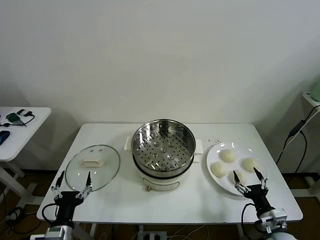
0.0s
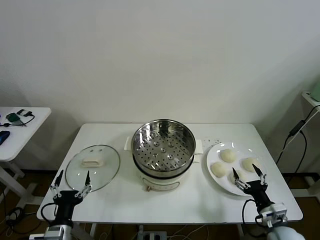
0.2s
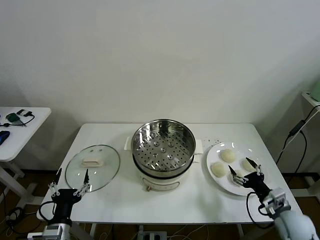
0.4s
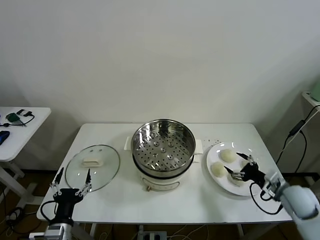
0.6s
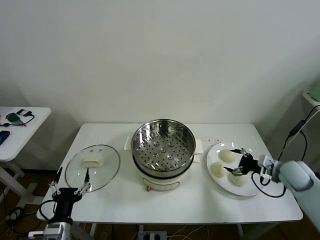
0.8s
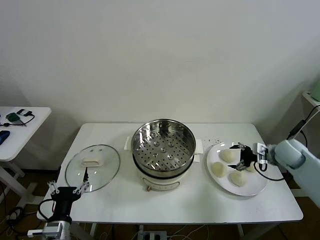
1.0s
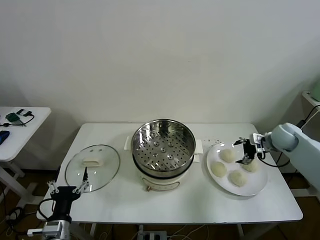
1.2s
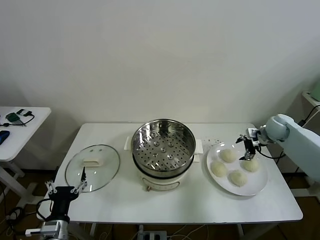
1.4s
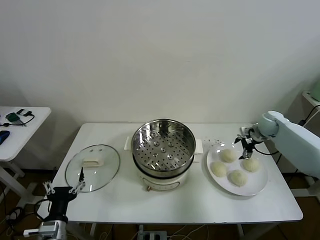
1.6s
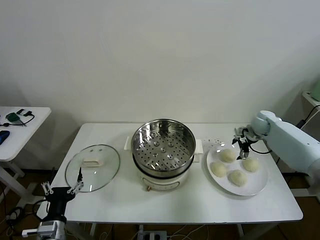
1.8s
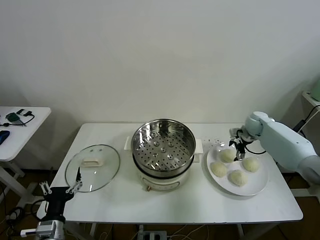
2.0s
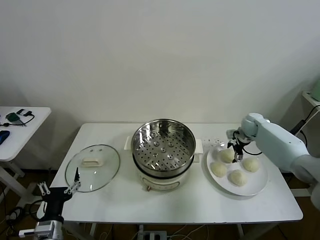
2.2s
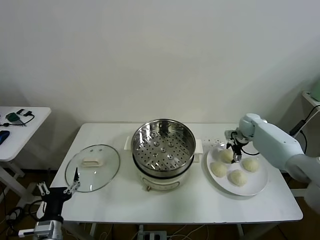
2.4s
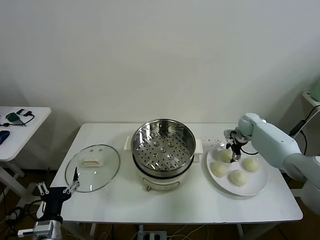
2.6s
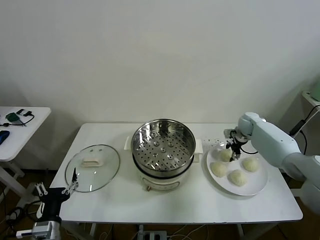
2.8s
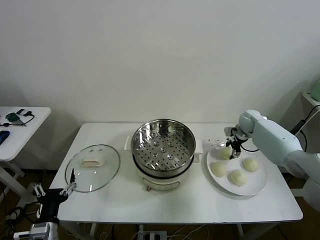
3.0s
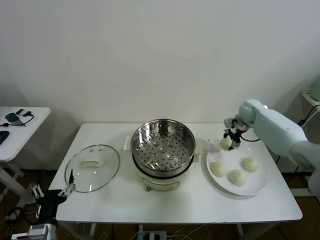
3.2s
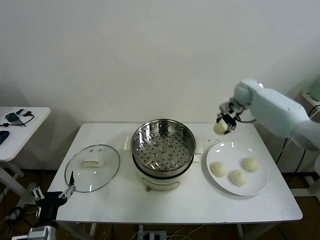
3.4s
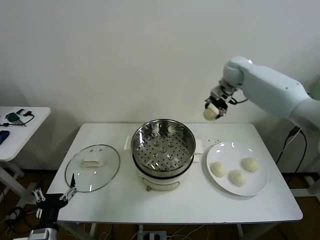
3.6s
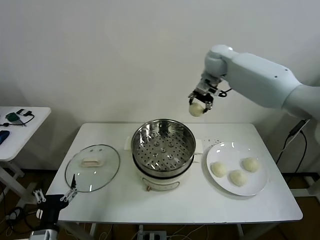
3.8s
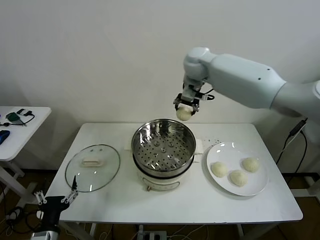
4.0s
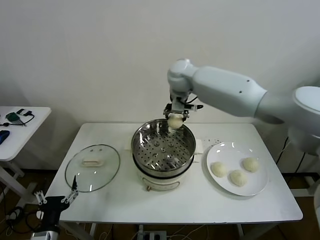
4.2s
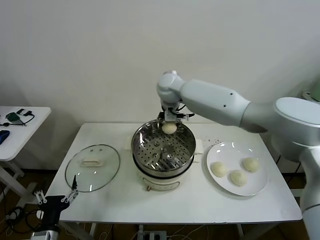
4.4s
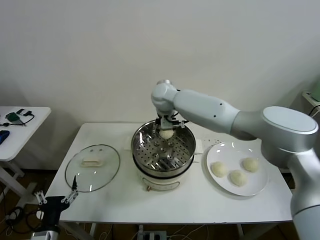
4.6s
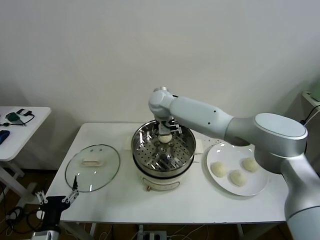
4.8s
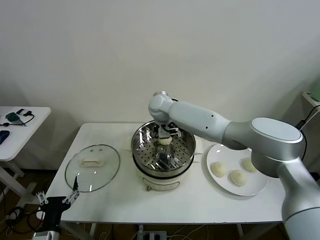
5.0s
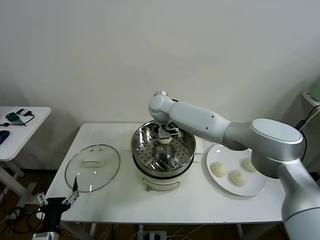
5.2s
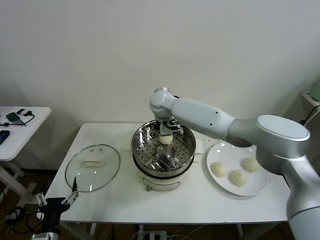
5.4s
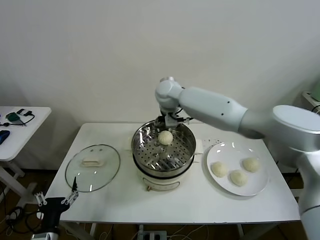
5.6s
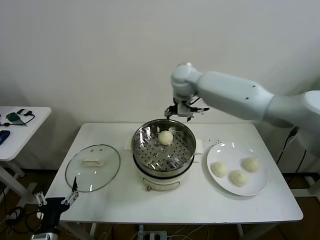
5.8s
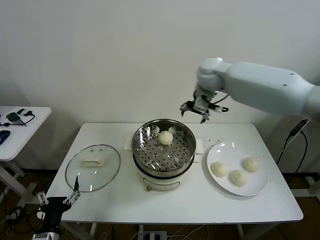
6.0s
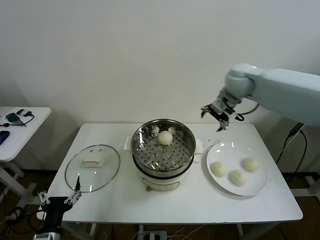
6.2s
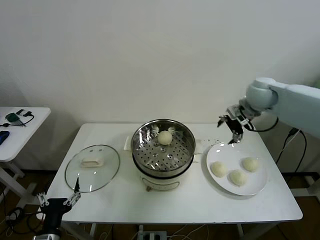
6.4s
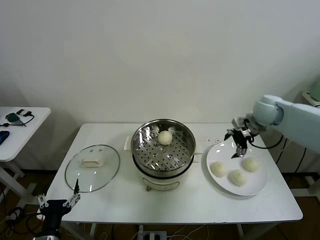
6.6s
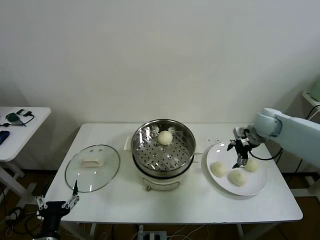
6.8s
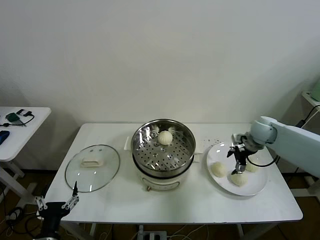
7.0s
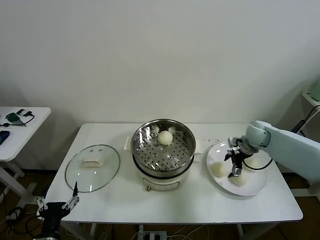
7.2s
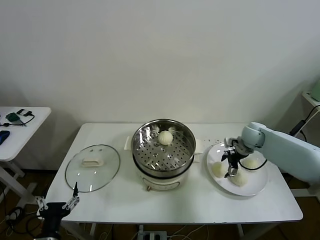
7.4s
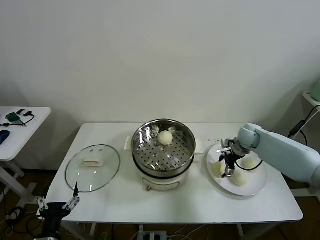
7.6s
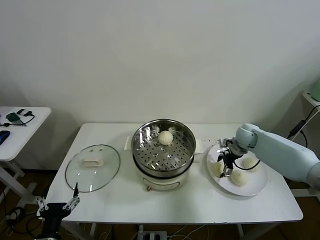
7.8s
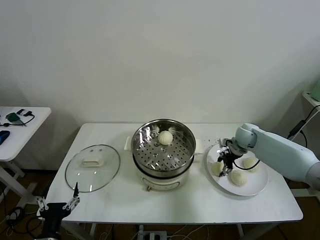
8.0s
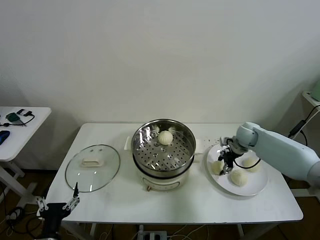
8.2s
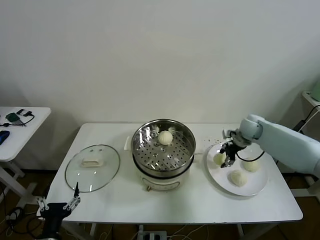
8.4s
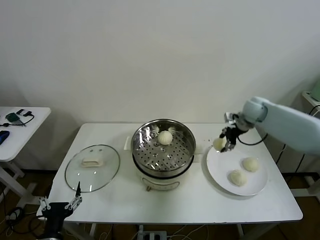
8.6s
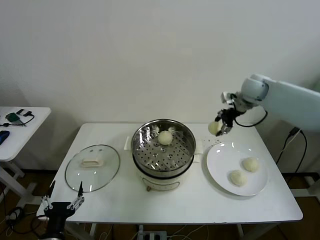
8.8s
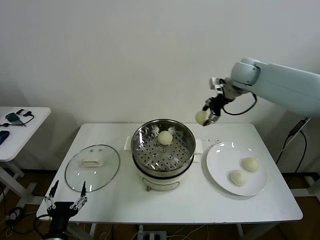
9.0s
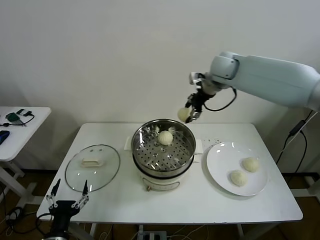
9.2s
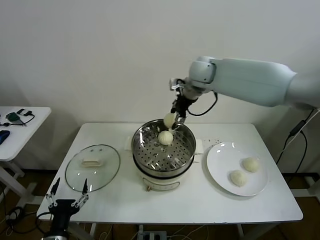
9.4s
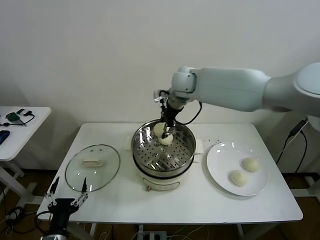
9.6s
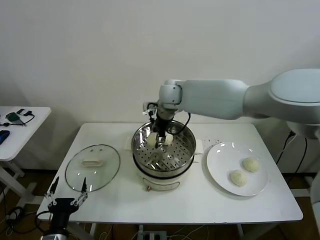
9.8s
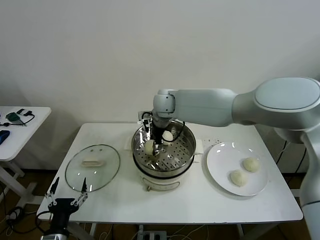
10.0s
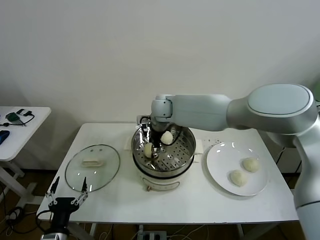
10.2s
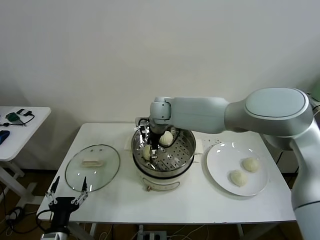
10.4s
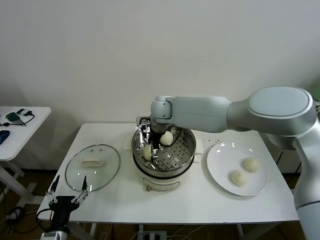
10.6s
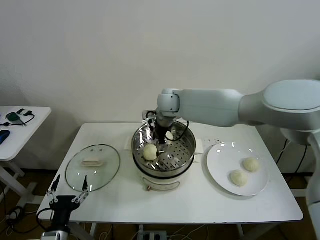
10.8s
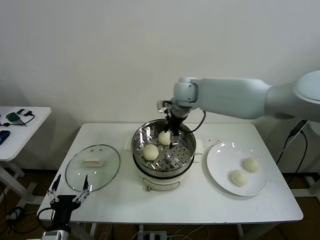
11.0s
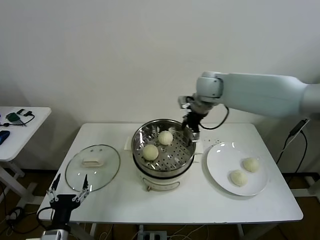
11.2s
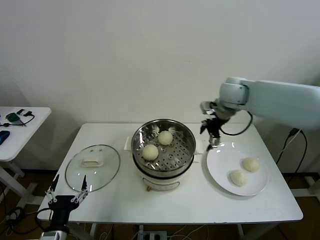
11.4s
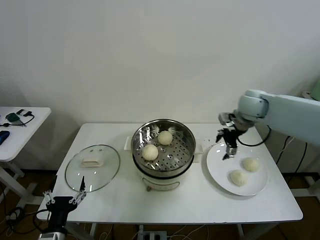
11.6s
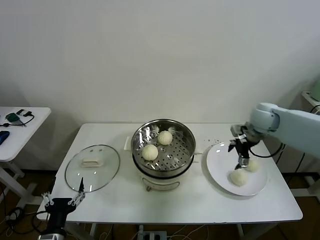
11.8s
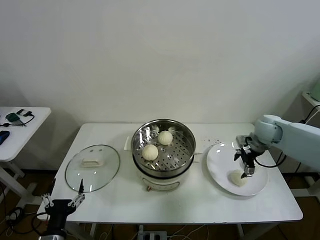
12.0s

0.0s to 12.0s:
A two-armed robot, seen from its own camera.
Task of the whole recording: take steamed baozi put them in steamer then cover it.
Step, 0.0s to 2.6s: Grasp the baozi in the plate with right gripper.
Step, 2.8s to 5.4s: Place the baozi on the steamer with right gripper.
Step, 5.6s to 8.0s: Grasp the baozi in the plate with right gripper.
Step, 8.2s to 10.6s: Place the baozi on the steamer with right gripper.
1.6s to 3.0s: The right gripper moves about 5 cm, and closes.
3.0s to 4.4s: The right gripper moves to the left, roughly 35 cm.
4.4s to 6.0s: The right gripper heads to the right, covering about 25 cm, and opens its fingers.
6.0s to 7.6s: The right gripper travels downward and to the right by approximately 25 cm.
7.6s to 9.0s: The right gripper travels upward and to the left by roughly 30 cm, and closes.
9.0s to 10.4s: The right gripper travels to the left and downward by roughly 25 cm, and opens up.
10.4s to 12.0s: The right gripper shifts roughly 40 cm to the right.

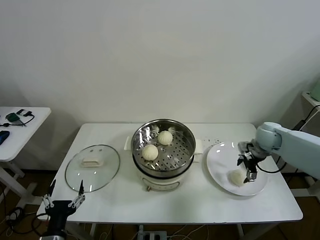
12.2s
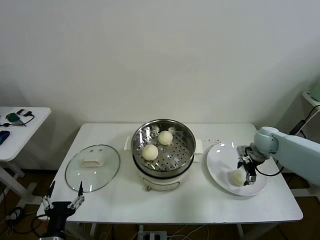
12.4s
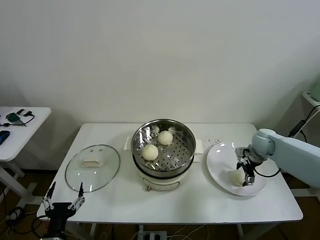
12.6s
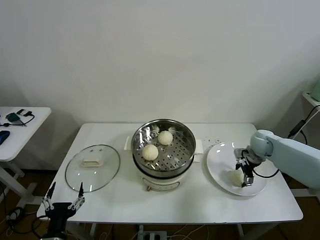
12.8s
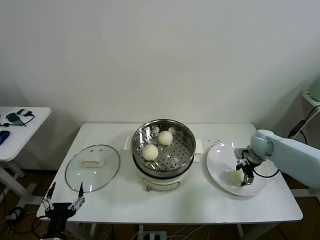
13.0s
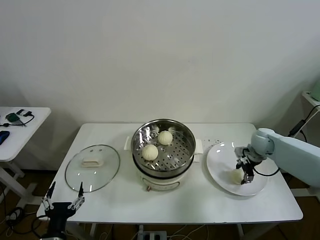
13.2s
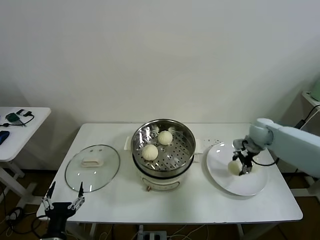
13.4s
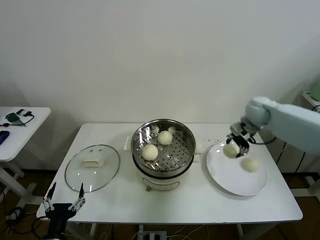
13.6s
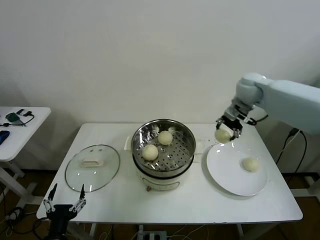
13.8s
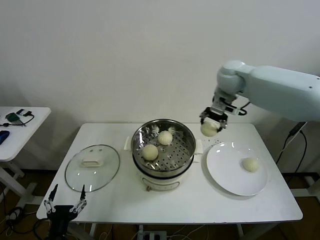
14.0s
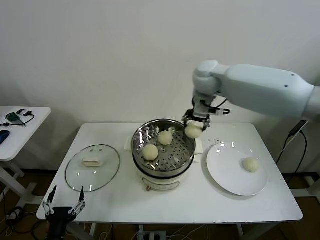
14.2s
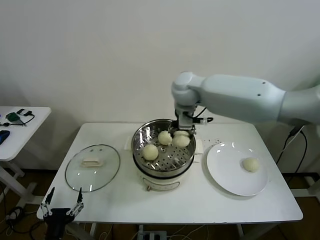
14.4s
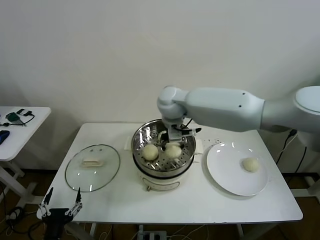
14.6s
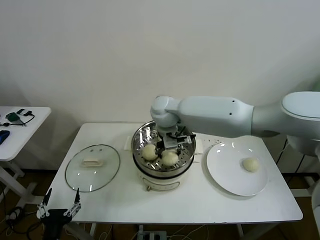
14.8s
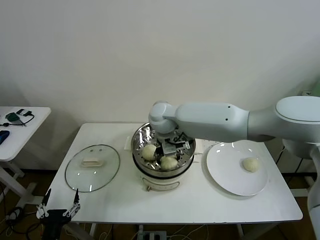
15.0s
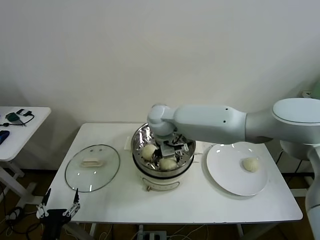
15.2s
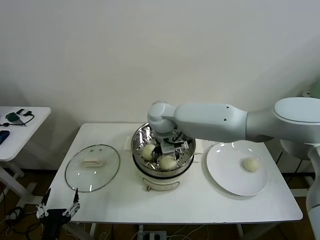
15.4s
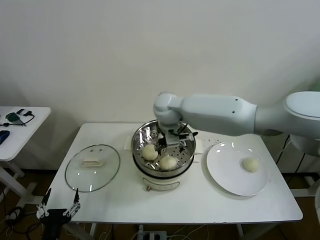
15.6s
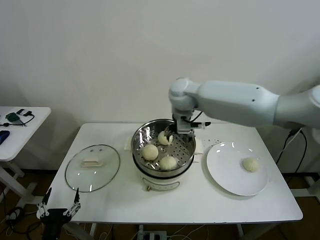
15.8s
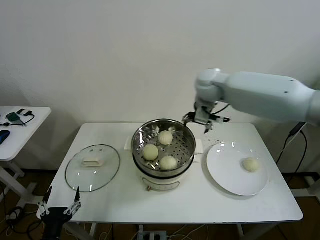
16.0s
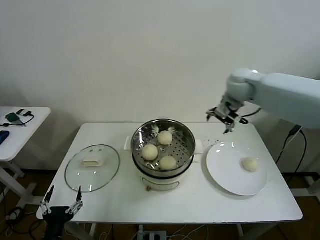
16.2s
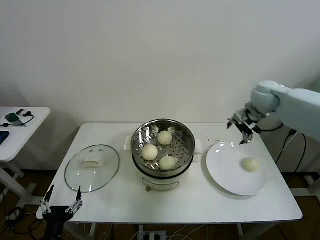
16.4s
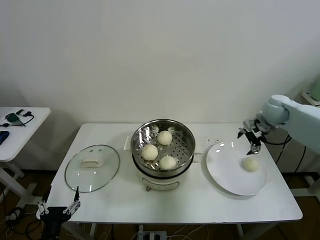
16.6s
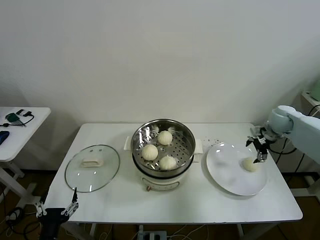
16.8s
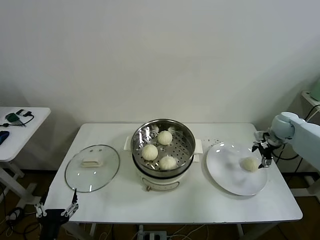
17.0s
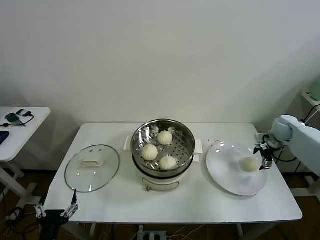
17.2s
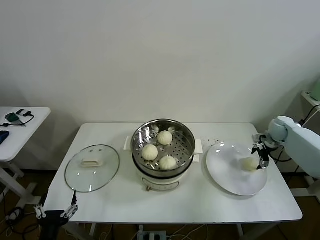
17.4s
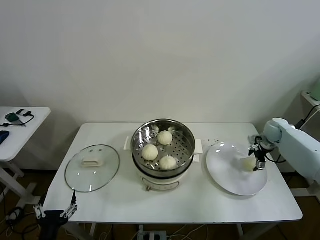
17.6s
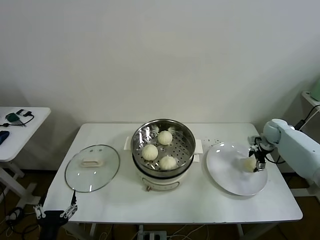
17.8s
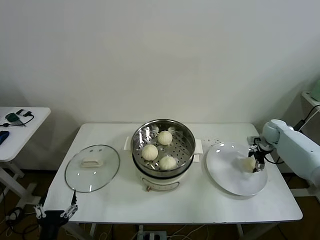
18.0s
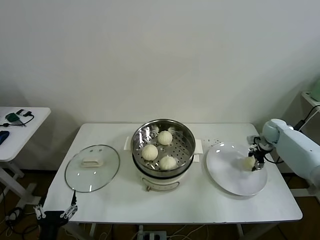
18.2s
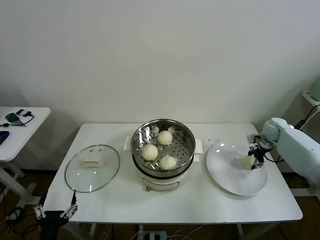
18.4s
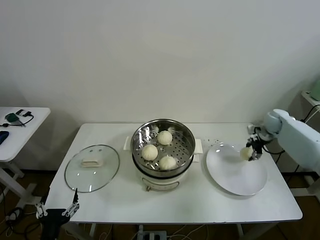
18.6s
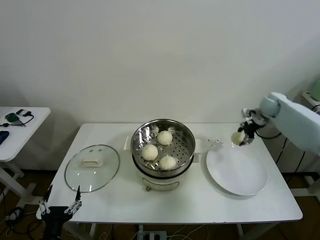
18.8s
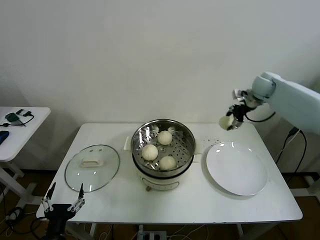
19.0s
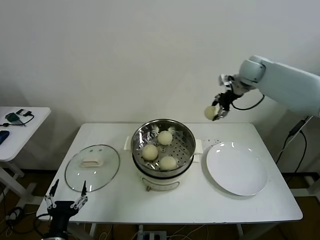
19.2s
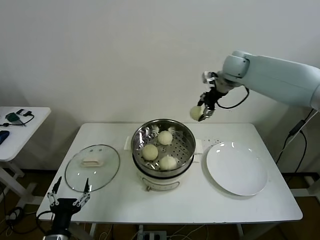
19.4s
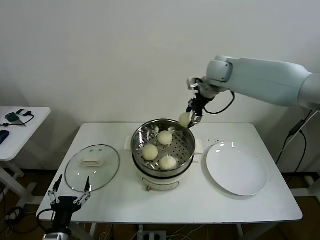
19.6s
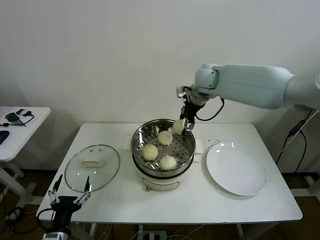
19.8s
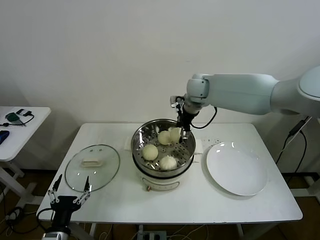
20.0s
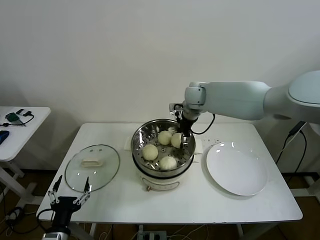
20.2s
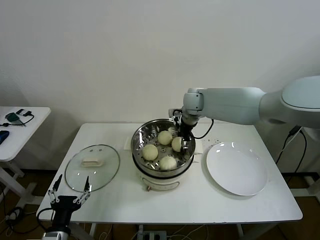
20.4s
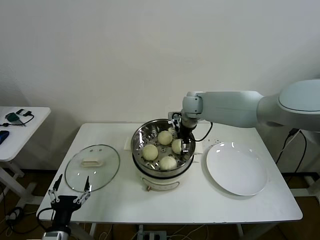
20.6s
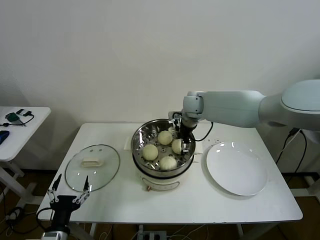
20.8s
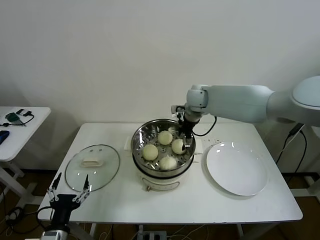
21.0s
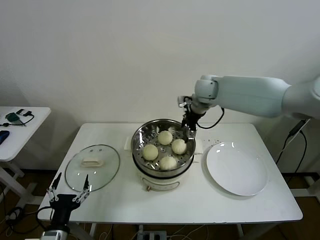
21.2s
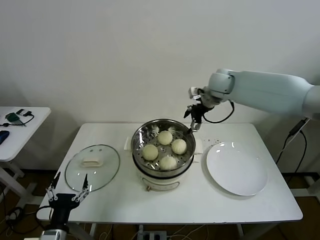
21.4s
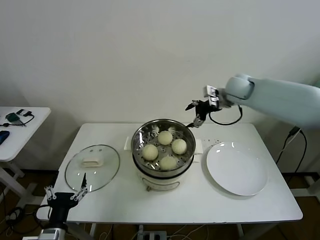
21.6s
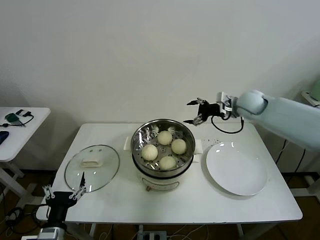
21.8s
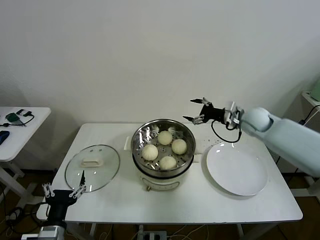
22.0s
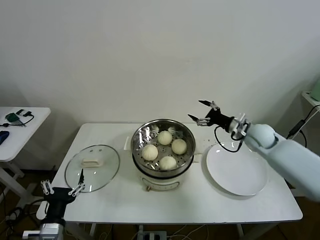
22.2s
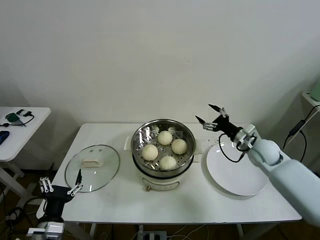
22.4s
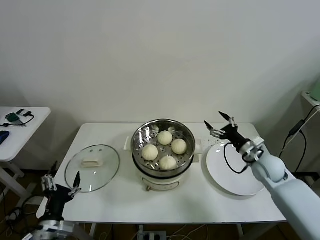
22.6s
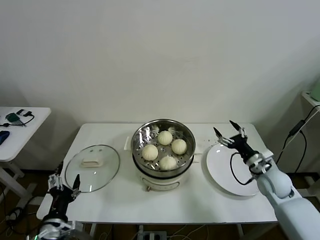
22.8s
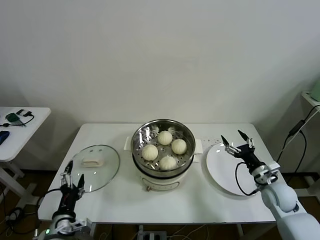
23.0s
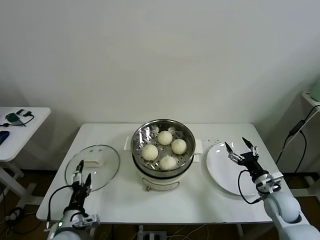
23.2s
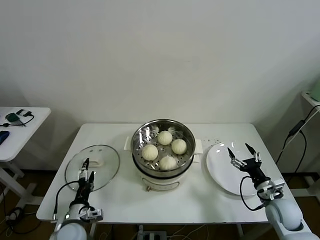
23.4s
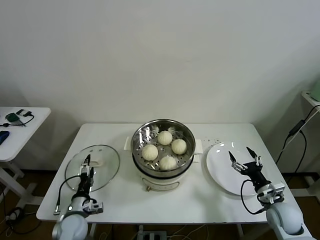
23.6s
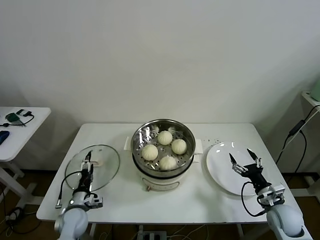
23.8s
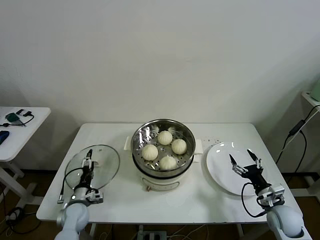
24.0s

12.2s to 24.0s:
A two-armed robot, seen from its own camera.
Task of the whole recording: take steamed baozi put them in steamer then cover it.
Step, 13.2s to 15.2s: Place the baozi on the steamer with right gripper.
Step, 15.4s to 18.2s: Grasp the baozi in the plate with right gripper.
Step, 18.4s to 20.8s: Place the baozi on the steamer with right gripper.
12.2s to 13.6s: The right gripper shifts approximately 20 cm upward, to the left and forward, and closes up.
13.6s to 15.2s: The right gripper goes approximately 30 cm to the left, and opens up.
15.2s to 16.6s: The right gripper shifts approximately 40 cm to the right.
16.6s to 18.2s: The right gripper shifts about 10 cm downward, and closes.
18.2s to 19.6s: The right gripper is displaced to the left and upward by some 40 cm.
19.6s to 21.0s: The right gripper travels downward by about 5 cm, and opens up.
21.0s to 22.6s: The right gripper moves to the right, downward and backward, some 35 cm.
22.6s to 24.0s: The left gripper moves forward and downward, some 25 cm, while the right gripper shifts about 15 cm backward and downward.
